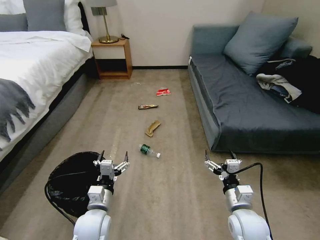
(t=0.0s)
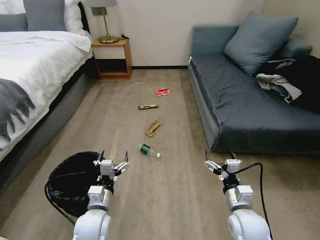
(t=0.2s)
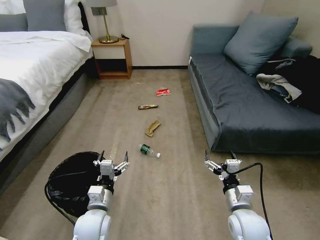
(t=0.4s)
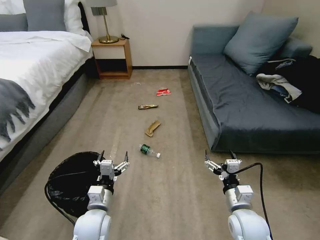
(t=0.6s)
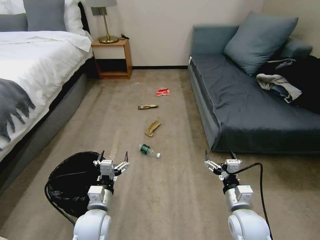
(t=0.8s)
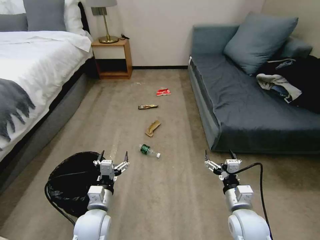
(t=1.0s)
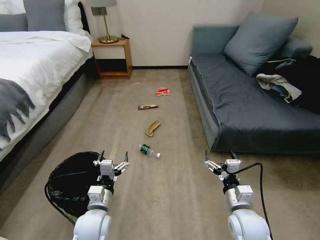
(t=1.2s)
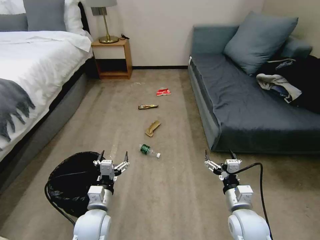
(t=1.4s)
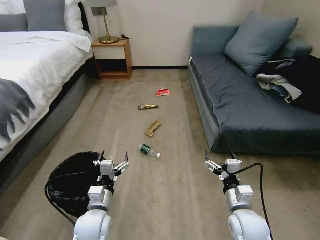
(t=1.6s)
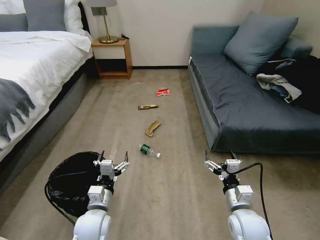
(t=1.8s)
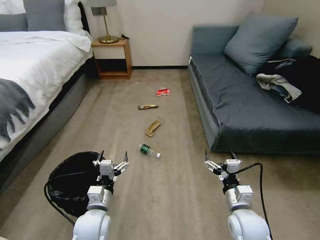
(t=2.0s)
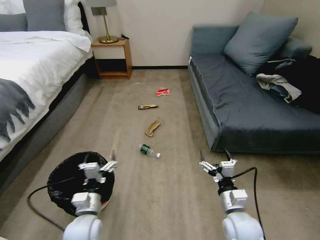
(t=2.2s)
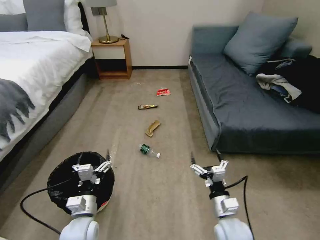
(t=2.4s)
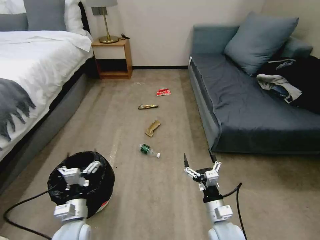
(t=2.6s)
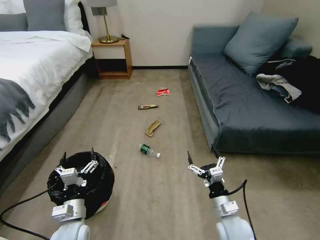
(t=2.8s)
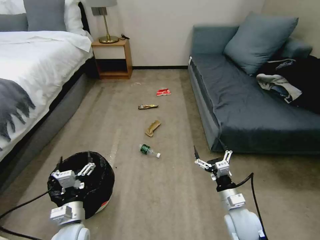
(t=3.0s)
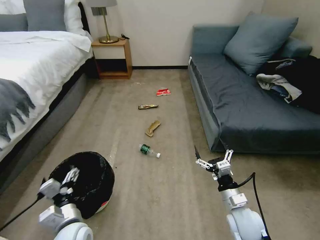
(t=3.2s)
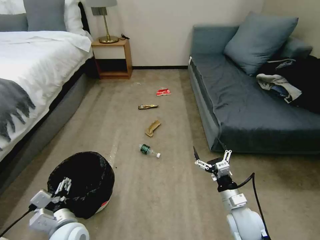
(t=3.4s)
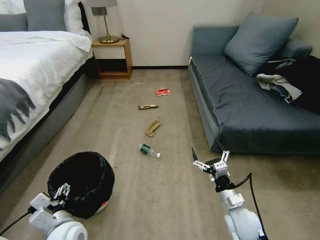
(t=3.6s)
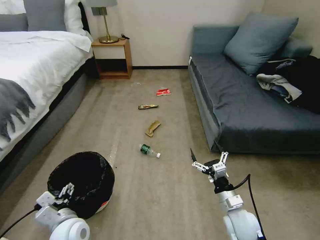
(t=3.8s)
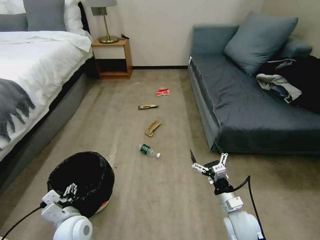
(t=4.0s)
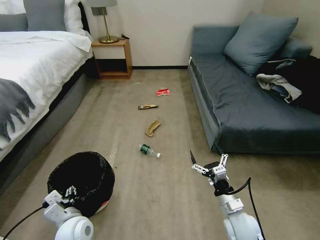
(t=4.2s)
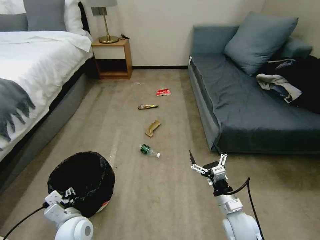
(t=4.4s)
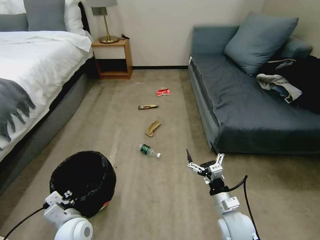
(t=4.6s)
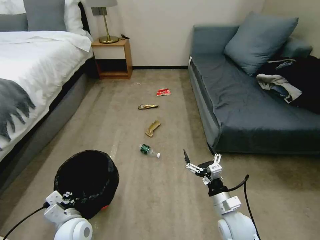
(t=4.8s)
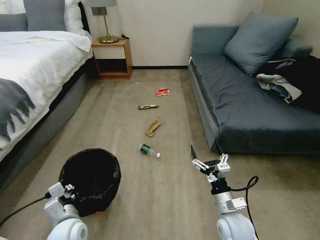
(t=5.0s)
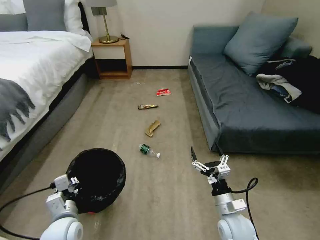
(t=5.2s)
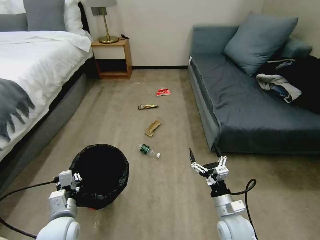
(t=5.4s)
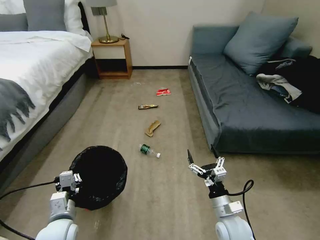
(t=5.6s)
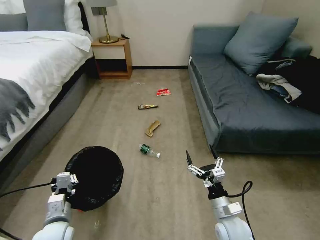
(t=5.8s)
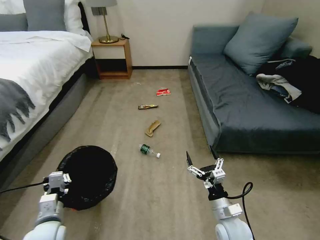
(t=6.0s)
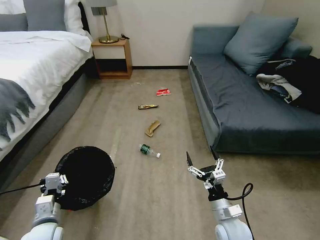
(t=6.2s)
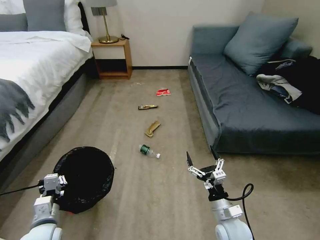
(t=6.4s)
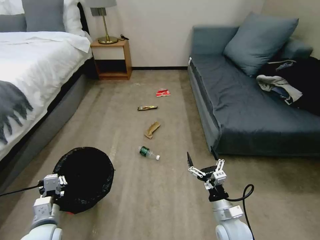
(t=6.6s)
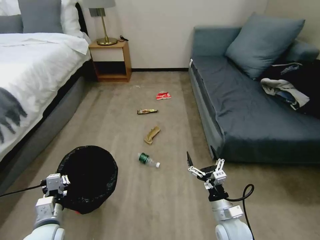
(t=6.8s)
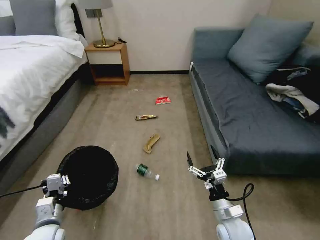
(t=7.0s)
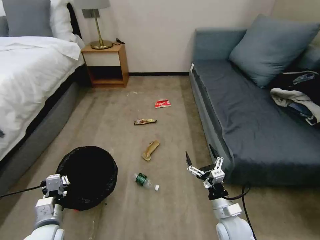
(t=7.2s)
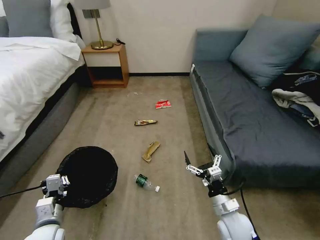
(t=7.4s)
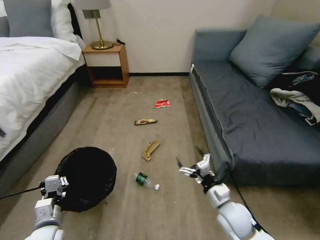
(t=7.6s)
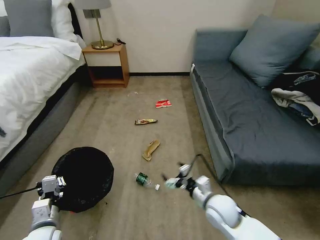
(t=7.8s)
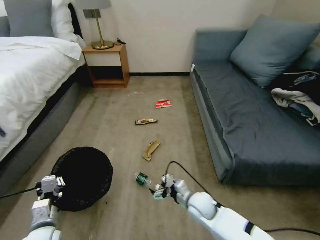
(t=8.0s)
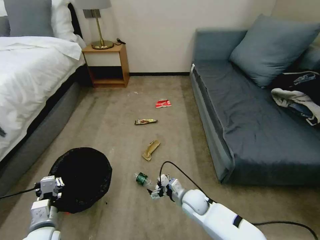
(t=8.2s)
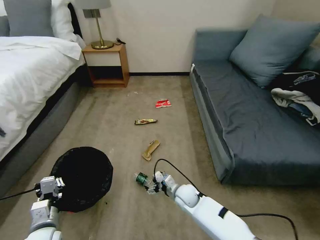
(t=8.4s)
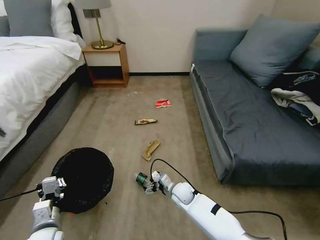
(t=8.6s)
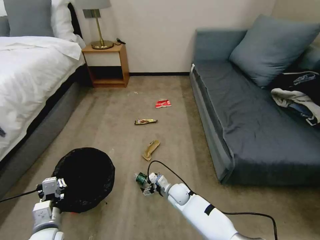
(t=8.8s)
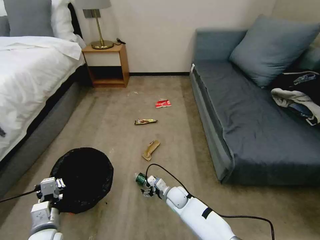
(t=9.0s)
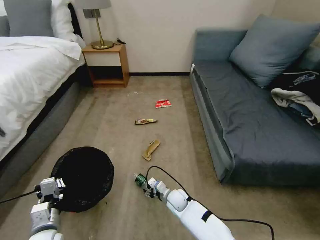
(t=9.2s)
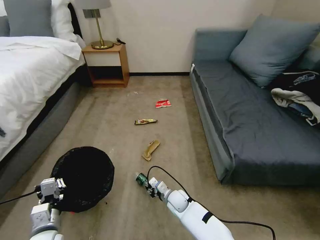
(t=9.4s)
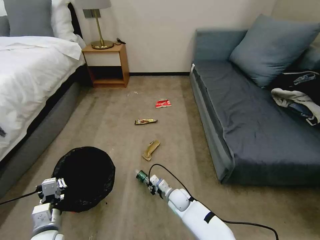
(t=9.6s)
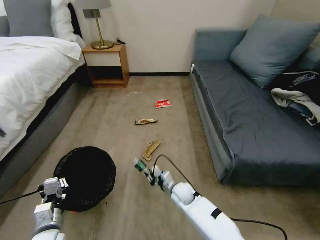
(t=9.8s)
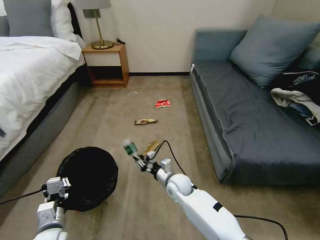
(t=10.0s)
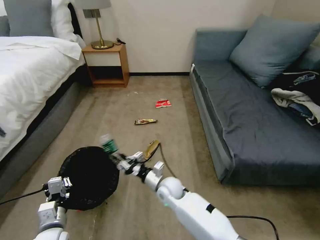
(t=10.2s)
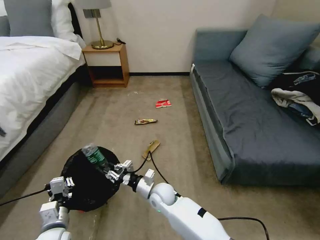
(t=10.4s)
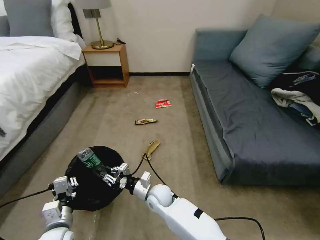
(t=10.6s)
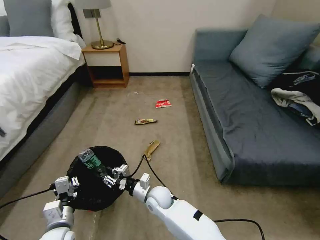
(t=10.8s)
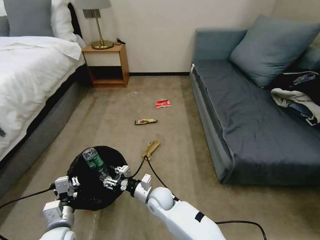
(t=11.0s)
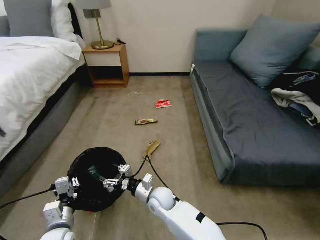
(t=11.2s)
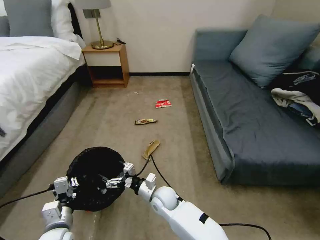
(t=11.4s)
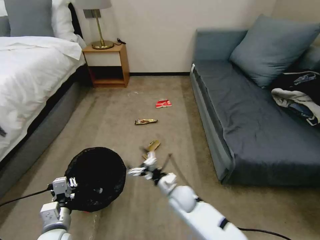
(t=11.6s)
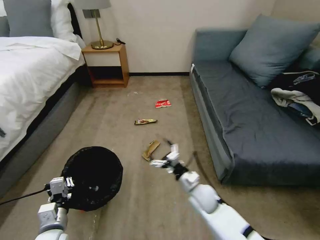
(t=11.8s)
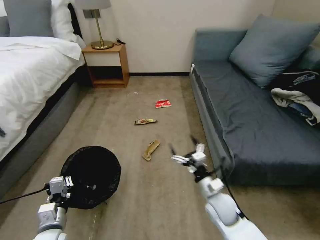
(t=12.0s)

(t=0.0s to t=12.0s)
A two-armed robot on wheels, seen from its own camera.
Task of the whole recording: Pick up the trash bin, then pick up the garbage on the floor and place it into the trash bin.
t=1.6s - t=3.0s: The left gripper moves to the left, about 5 cm.
t=3.0s - t=4.4s: The left gripper closes.
t=4.4s - t=6.0s: The left gripper heads to the left, covering roughly 5 cm, and closes.
t=7.6s - t=9.0s: The right gripper moves to the left, downward and forward, about 25 cm.
t=9.0s - t=10.4s: The right gripper shifts roughly 10 cm upward and to the left, and closes its fingers.
t=10.4s - t=12.0s: The right gripper moves to the right, some 20 cm, and opens its fingers.

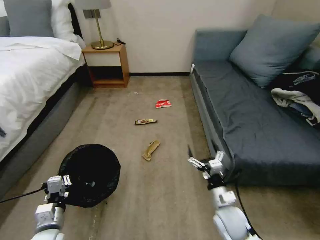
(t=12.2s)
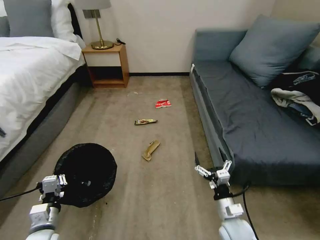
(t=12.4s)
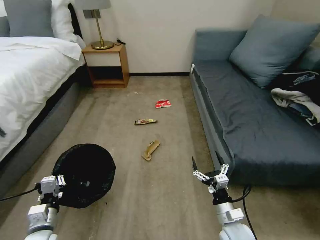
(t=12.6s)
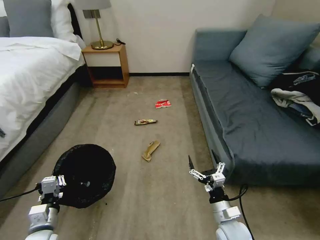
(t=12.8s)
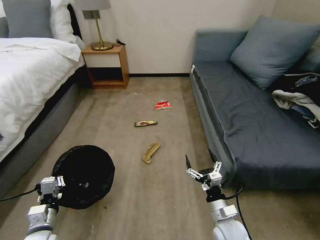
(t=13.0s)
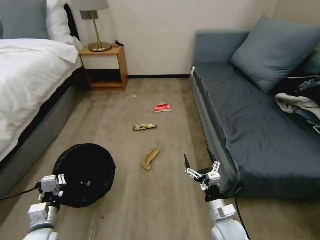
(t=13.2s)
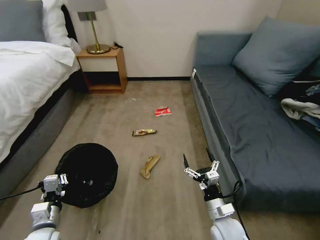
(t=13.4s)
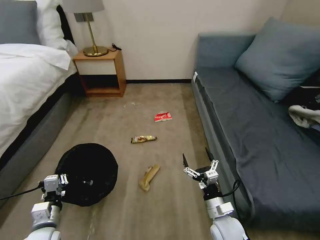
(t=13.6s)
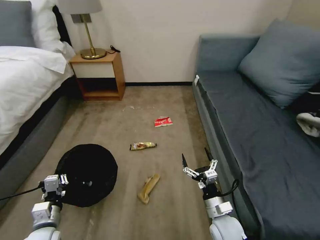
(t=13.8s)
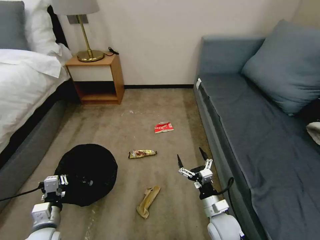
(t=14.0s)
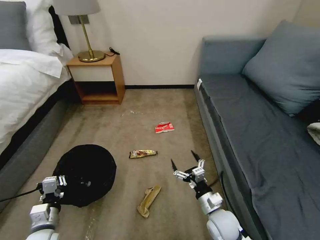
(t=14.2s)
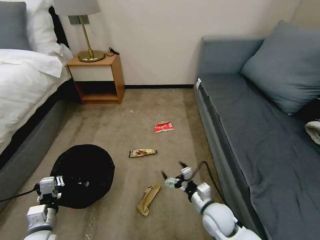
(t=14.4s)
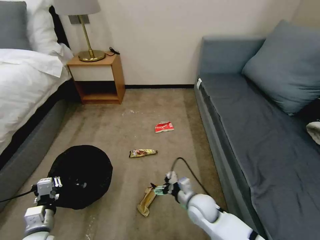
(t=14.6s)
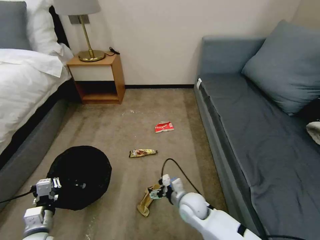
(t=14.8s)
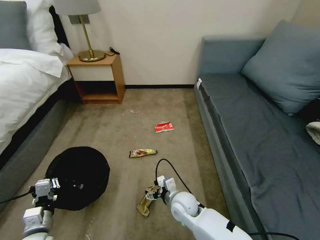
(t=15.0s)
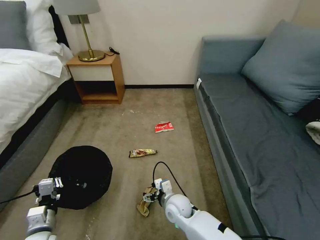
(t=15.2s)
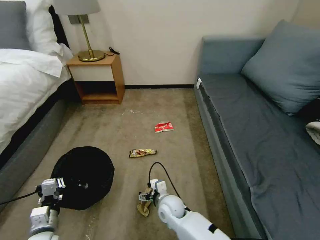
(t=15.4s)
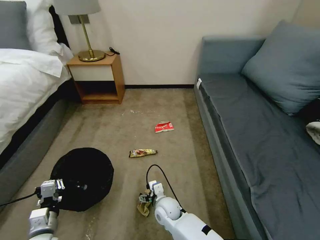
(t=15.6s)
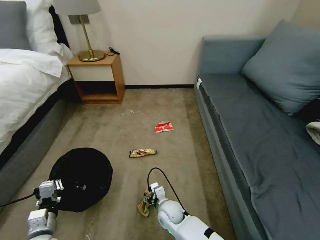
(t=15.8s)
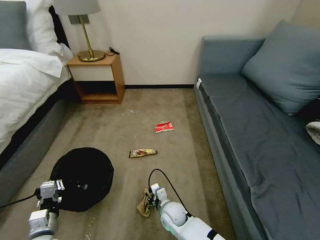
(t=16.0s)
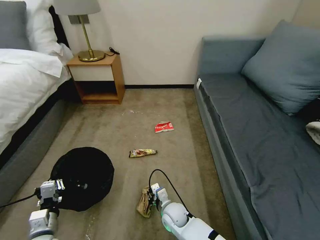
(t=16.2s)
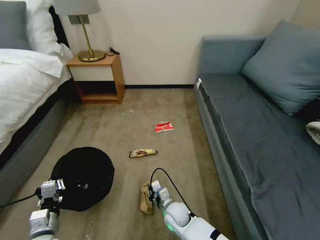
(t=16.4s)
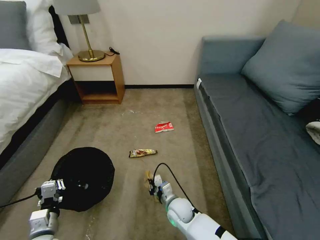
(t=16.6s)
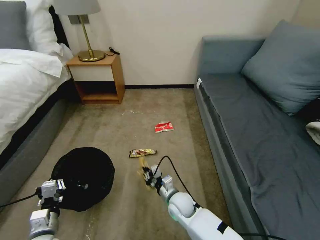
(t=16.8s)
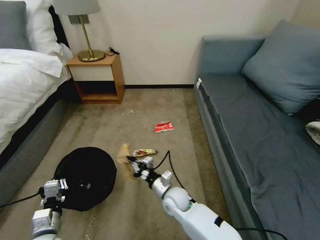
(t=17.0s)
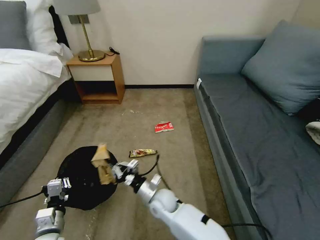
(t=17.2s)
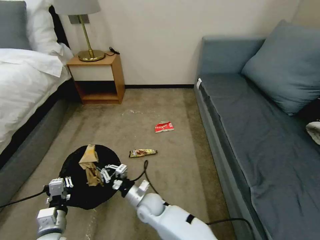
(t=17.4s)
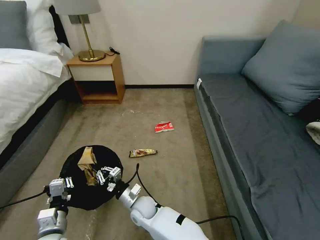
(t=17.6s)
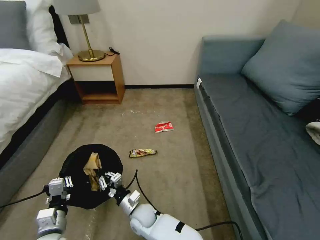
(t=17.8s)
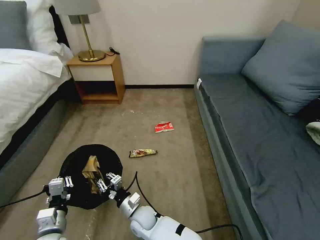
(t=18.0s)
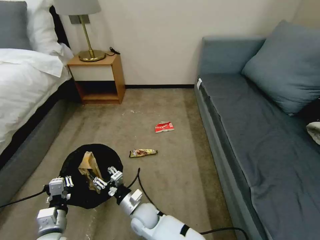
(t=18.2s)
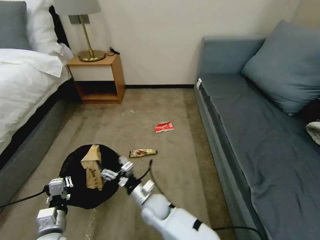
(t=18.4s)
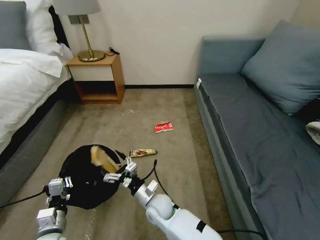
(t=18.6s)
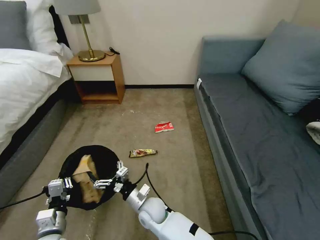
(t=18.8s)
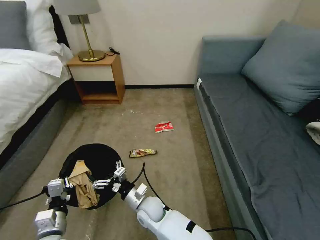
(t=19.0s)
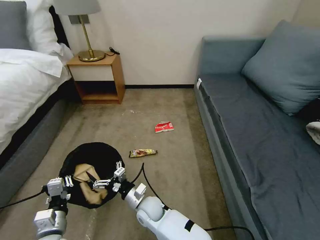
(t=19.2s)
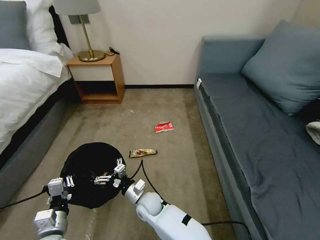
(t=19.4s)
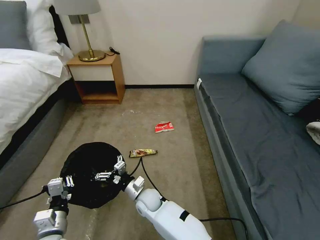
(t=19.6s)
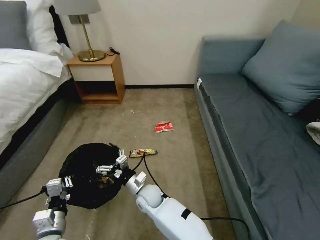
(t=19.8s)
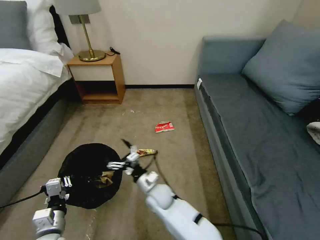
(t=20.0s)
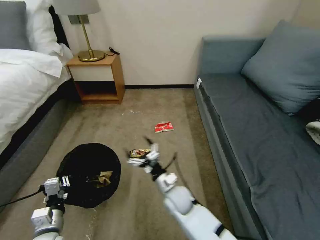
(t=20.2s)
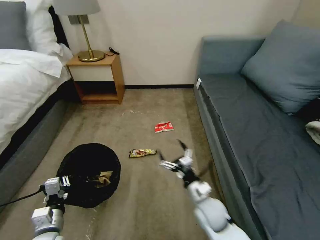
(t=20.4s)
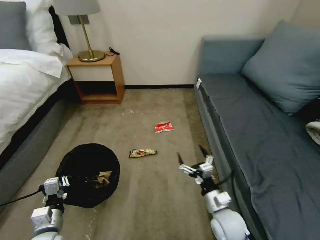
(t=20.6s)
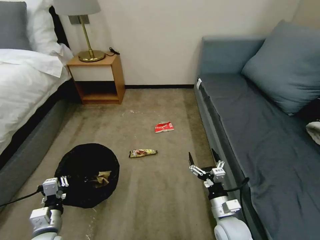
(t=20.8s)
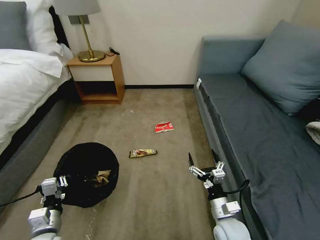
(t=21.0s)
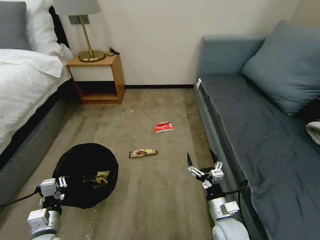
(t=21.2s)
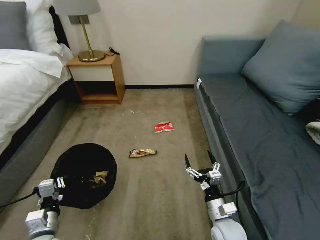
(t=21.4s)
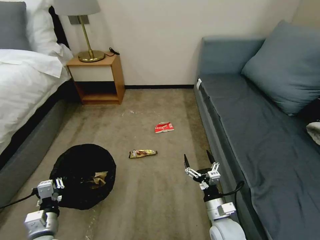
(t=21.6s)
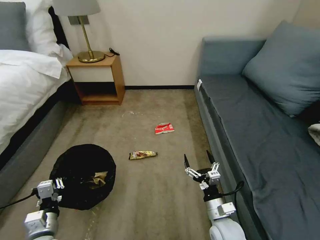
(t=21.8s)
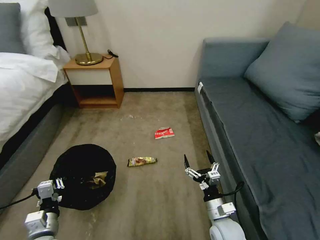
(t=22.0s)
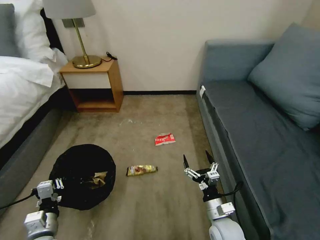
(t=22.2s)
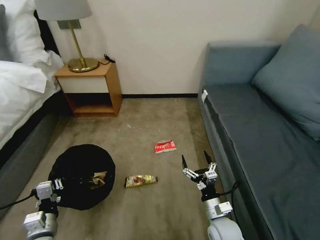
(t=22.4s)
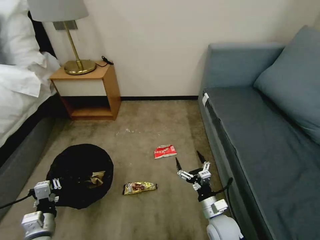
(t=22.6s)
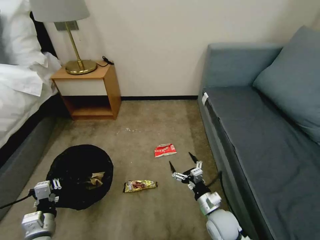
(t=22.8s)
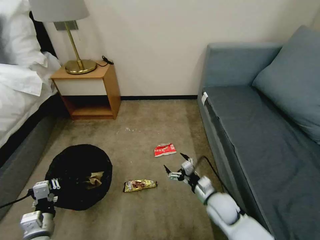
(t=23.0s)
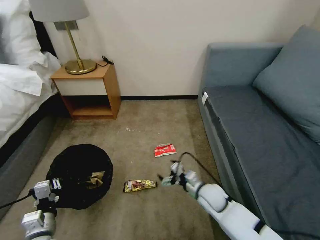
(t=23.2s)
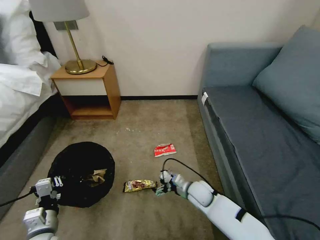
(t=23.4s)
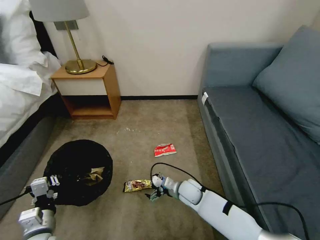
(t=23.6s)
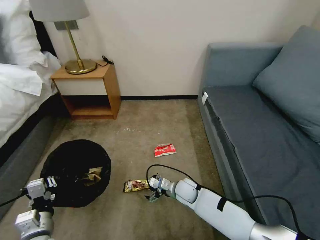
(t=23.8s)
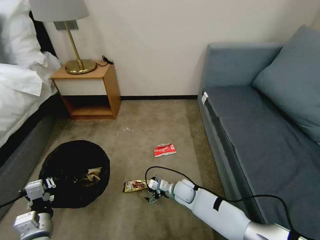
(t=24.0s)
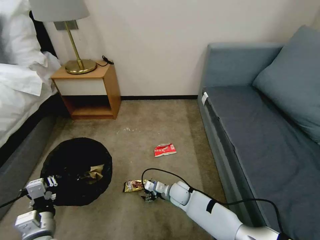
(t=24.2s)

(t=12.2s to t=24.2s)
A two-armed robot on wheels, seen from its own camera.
Task of the whole recording: Pick up the trash bin, then pick up the garbage on the floor and place it into the trash bin.
t=13.8s - t=15.2s: The right gripper shifts about 15 cm to the left and forward.
t=15.2s - t=16.6s: The right gripper closes.
t=16.6s - t=18.2s: The right gripper shifts about 15 cm to the left, and opens up.
t=18.2s - t=19.8s: The right gripper is displaced forward by some 5 cm, and opens up.
t=19.8s - t=21.2s: The right gripper travels to the right and backward by approximately 30 cm.
t=22.6s - t=24.2s: The right gripper goes about 20 cm forward, to the left and downward.
